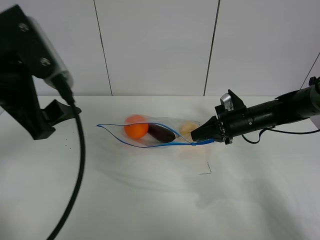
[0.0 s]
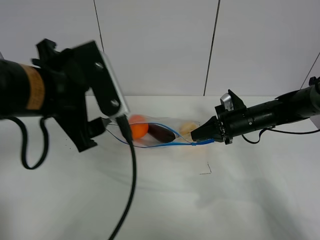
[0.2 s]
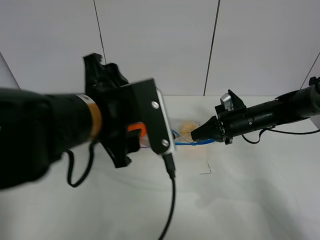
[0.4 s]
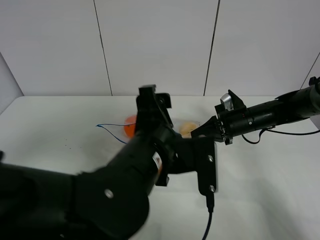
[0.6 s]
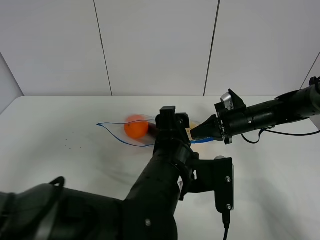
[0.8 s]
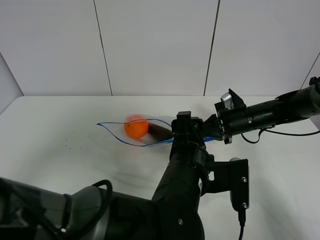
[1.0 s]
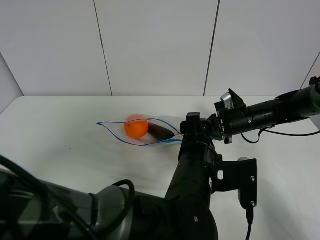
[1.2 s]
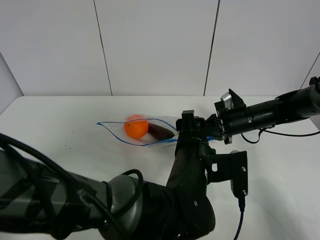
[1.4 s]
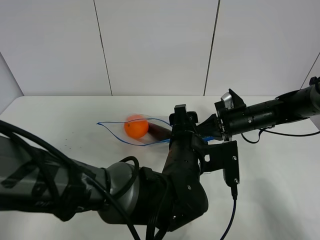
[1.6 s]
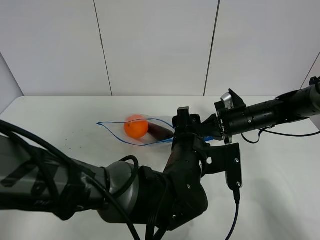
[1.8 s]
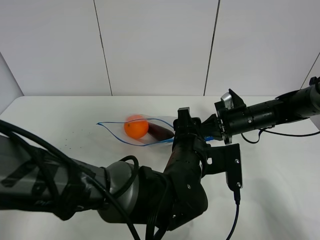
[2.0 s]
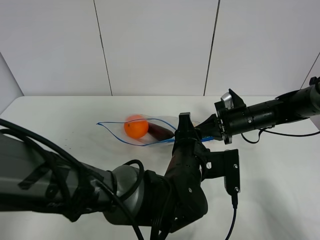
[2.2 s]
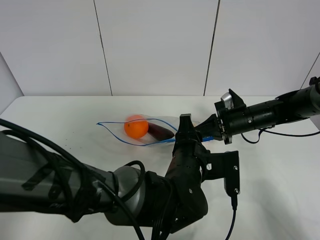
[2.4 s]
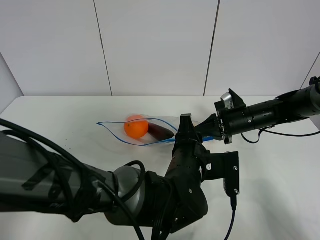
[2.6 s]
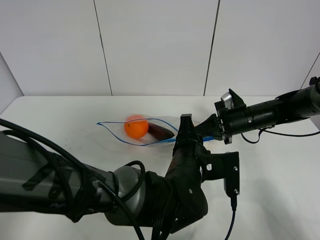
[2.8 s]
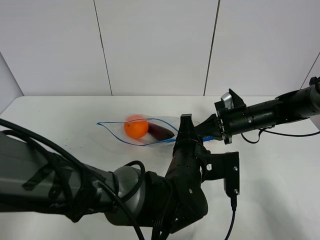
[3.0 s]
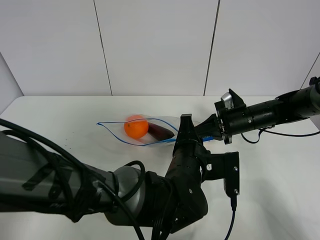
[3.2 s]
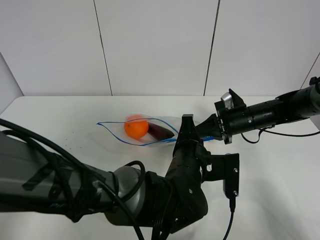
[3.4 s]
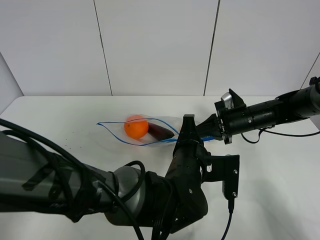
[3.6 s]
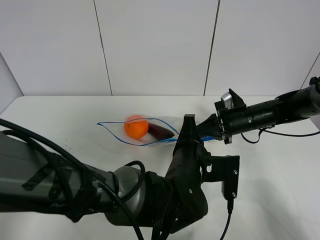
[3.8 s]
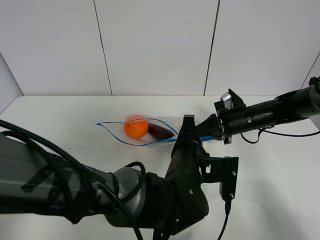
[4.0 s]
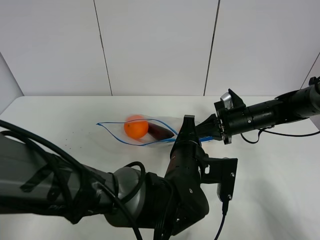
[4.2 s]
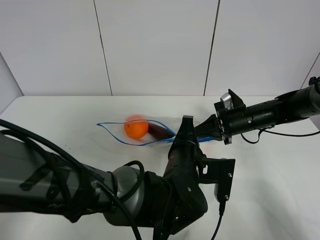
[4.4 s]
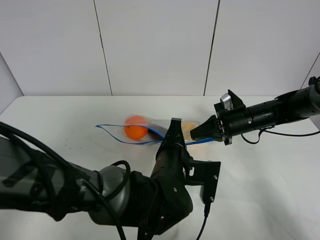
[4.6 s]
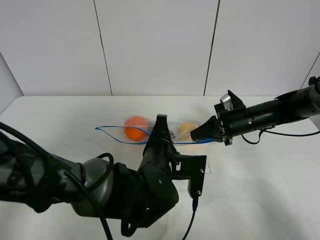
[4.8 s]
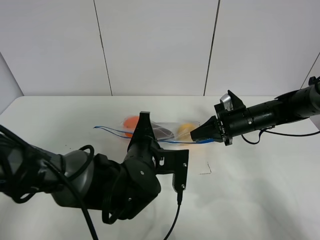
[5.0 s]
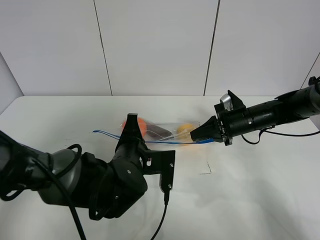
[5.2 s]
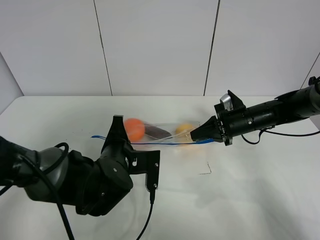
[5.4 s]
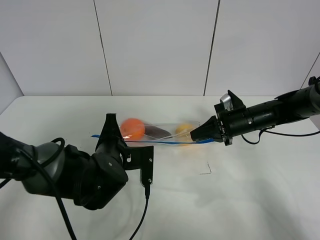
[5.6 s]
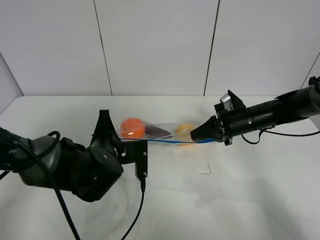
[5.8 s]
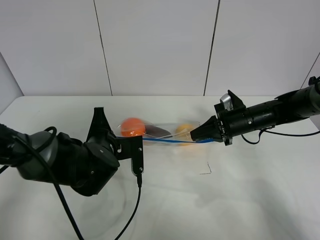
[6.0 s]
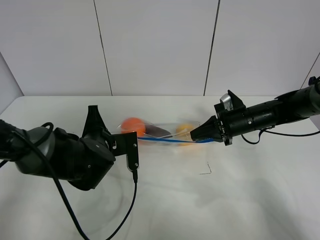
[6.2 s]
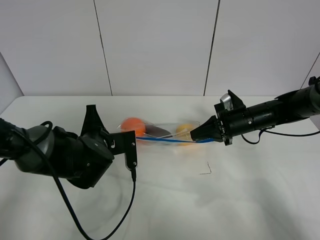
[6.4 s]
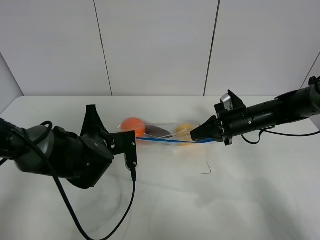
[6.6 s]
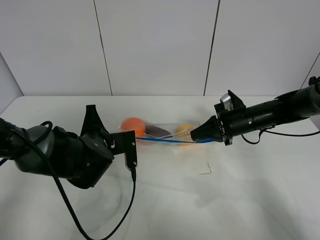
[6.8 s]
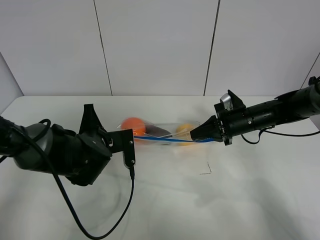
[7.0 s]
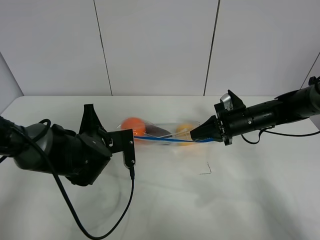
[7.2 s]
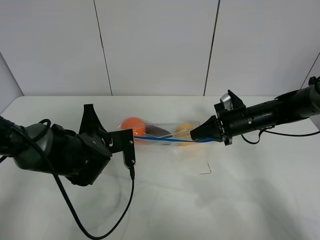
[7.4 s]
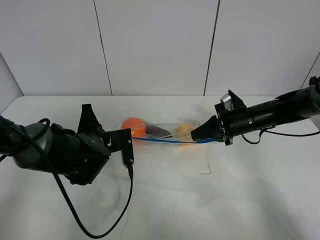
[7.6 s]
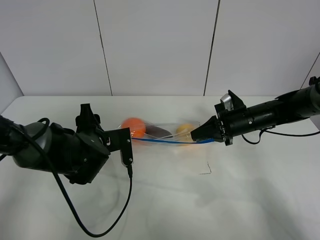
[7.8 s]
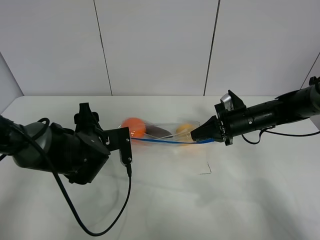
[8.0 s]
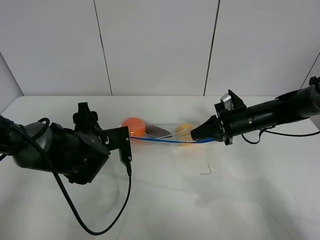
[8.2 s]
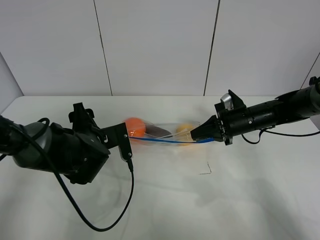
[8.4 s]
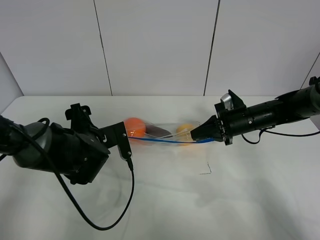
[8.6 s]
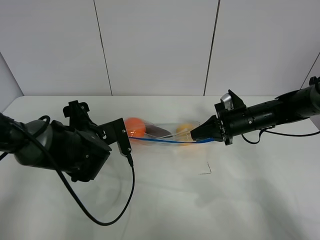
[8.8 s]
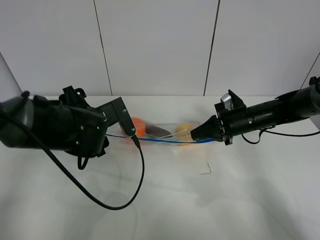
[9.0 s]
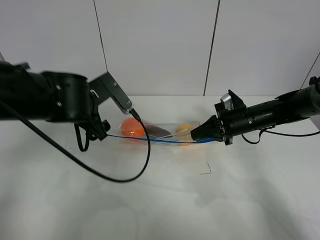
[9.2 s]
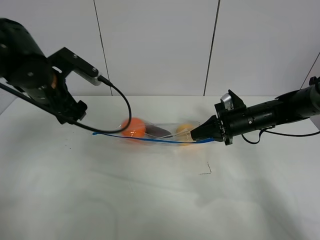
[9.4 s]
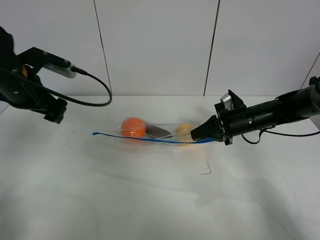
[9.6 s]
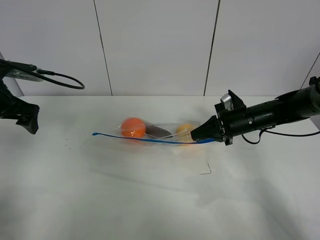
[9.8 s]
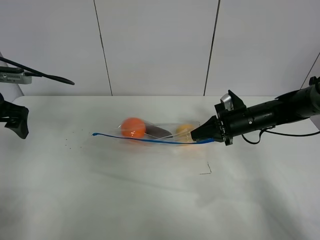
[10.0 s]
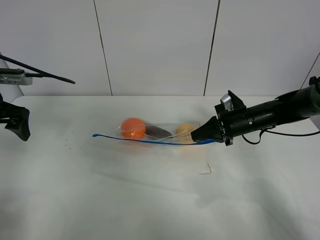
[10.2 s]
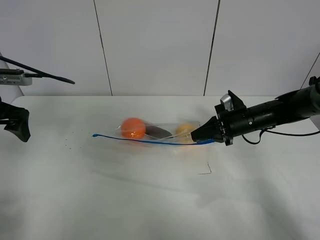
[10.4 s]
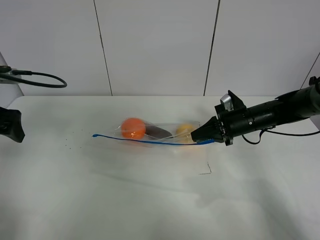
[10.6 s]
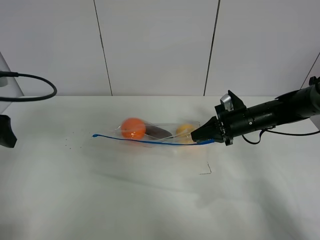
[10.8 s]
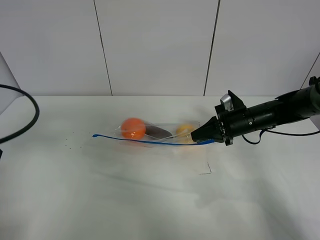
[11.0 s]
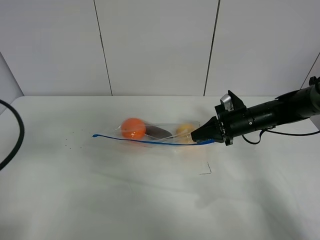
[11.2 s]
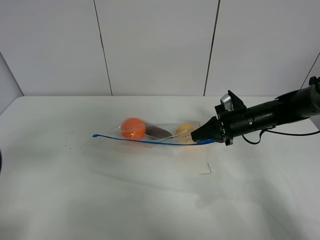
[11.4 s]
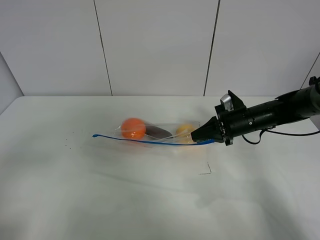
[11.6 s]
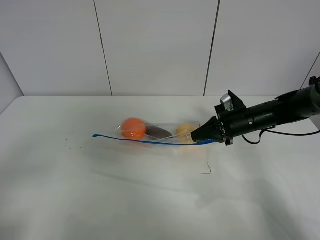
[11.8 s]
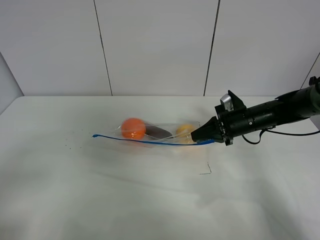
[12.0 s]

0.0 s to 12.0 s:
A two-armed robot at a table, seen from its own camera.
Step, 0.0 to 7.8 s: Pull the fruit bag with left gripper.
0.0 to 1.6 s: The left gripper travels to the right and downward by some 30 cm.
1.6 to 3.0 s: The left gripper closes up.
3.0 to 4.4 s: The grippers make only small movements.
4.4 to 6.0 s: The left gripper goes approximately 15 cm to the left.
6.0 to 7.6 s: The grippers make only small movements.
7.6 to 9.0 s: The left gripper moves upward, some 5 cm, and opens up.
9.0 to 10.4 s: The left gripper travels to the left by about 20 cm.
10.4 to 12.0 s: The left gripper goes some 25 cm backward.

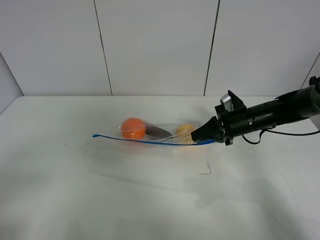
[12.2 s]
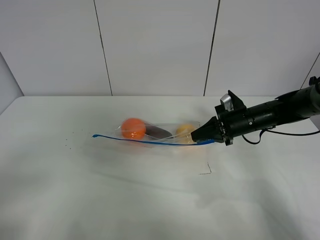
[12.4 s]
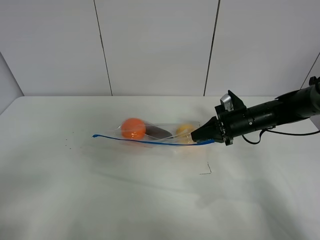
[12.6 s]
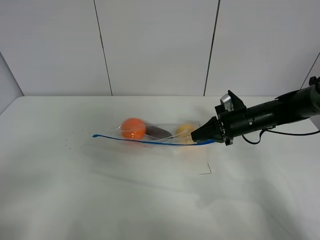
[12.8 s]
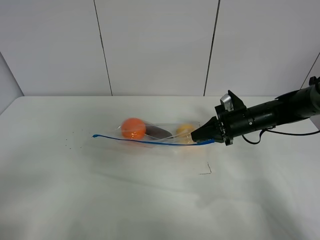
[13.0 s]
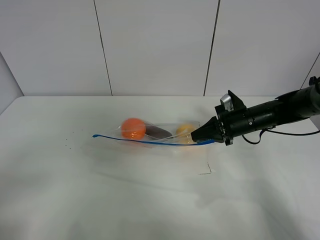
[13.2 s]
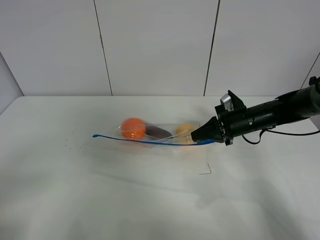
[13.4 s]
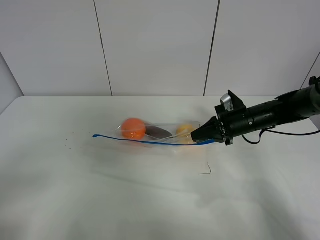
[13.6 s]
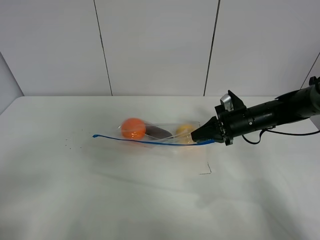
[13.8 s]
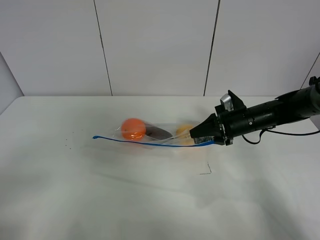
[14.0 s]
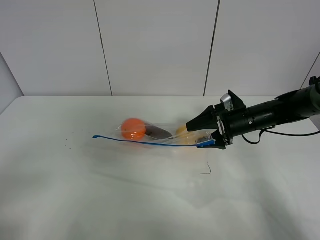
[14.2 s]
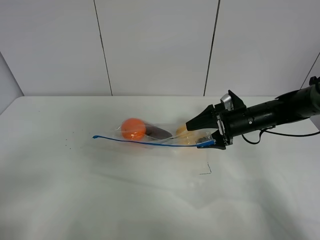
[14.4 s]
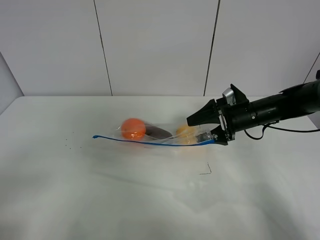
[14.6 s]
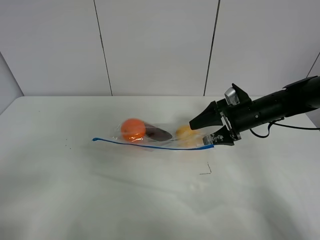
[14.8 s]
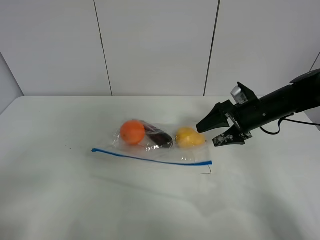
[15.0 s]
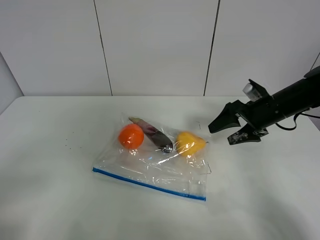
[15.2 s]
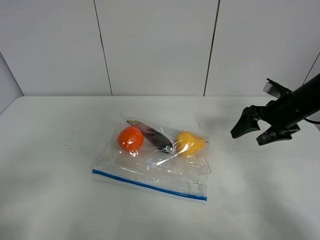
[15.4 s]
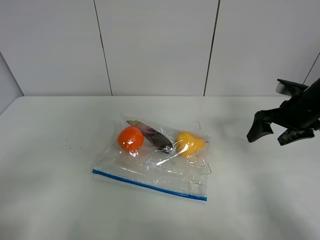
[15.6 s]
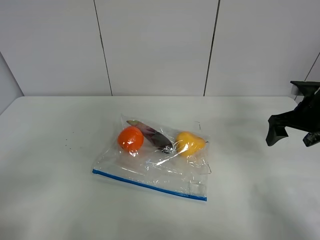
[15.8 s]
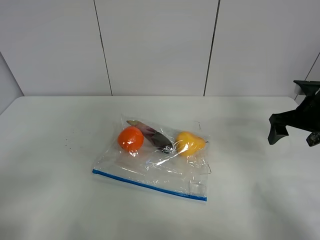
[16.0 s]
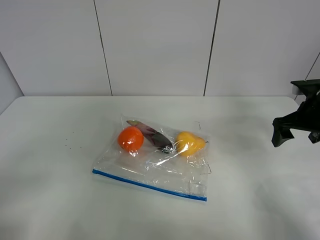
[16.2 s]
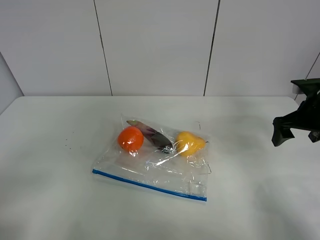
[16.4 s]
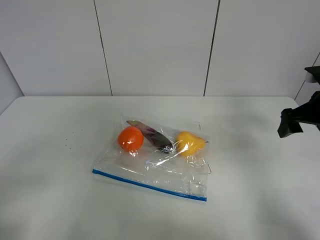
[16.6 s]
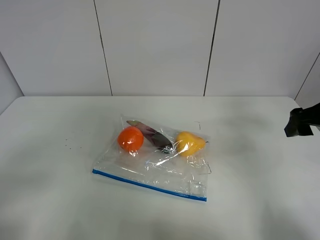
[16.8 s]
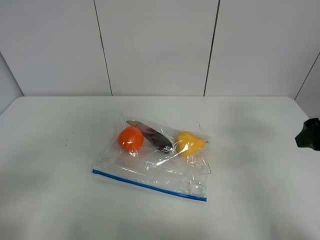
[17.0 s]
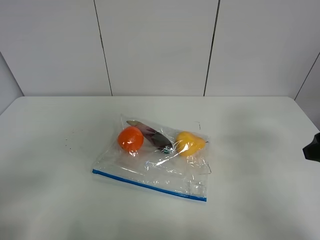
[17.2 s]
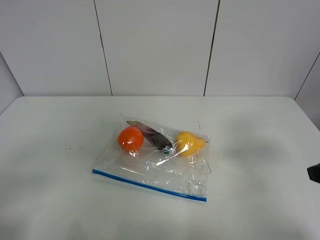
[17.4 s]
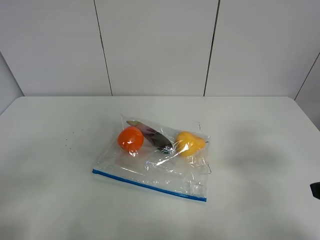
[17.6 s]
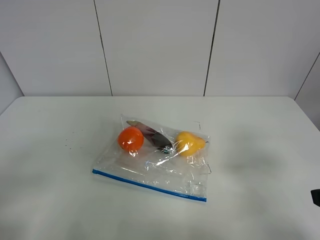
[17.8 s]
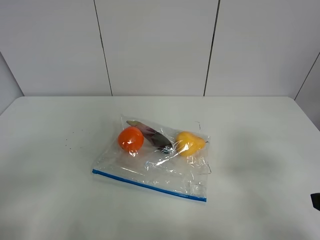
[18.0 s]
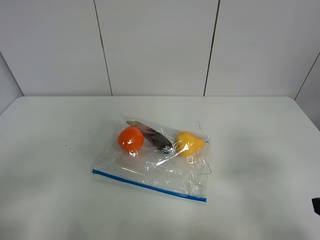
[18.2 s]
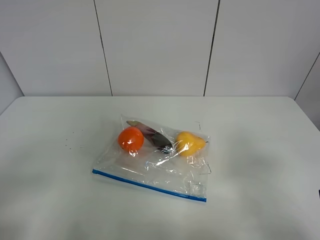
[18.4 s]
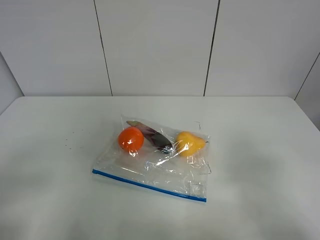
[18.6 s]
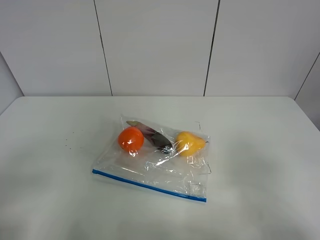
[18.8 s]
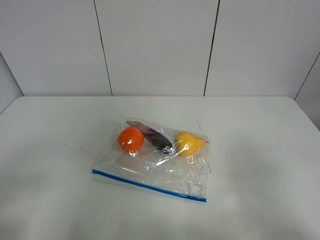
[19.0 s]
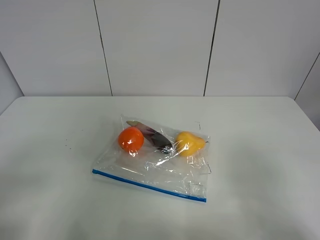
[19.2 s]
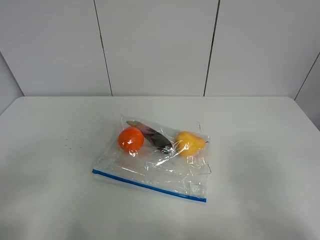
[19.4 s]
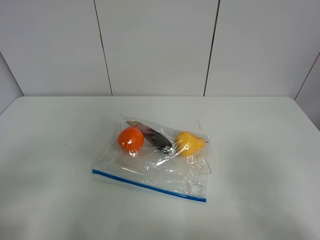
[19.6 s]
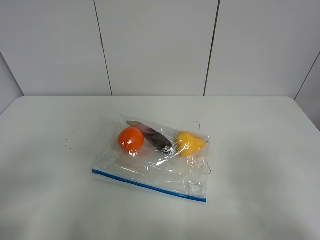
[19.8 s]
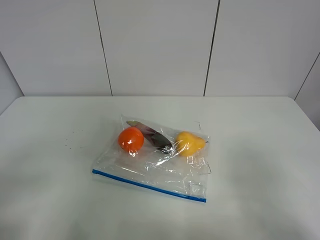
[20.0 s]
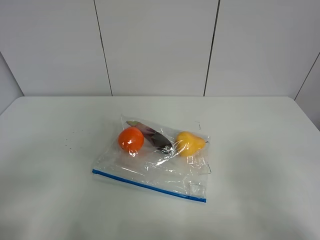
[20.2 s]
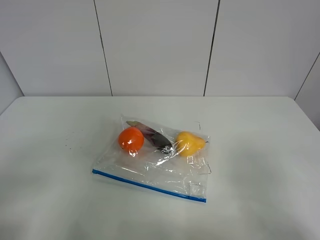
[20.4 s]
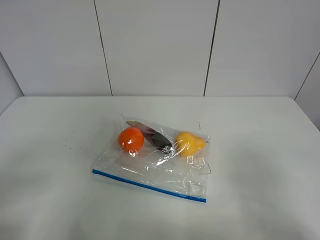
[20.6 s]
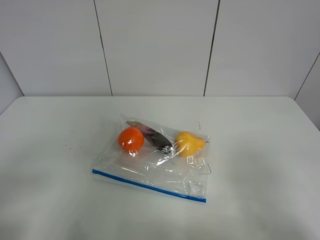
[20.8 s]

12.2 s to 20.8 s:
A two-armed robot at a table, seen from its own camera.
Step, 12.2 to 15.2 s: Place the fruit bag with right gripper.
12.2 to 13.6 s: Both grippers stay put.
13.6 to 15.0 s: The right gripper opens its fingers.
15.0 to 16.6 s: The right gripper shifts approximately 15 cm to the right, upward and backward.
16.6 to 18.0 s: The right gripper heads backward, covering roughly 20 cm.
19.4 to 20.8 s: Neither gripper changes place.

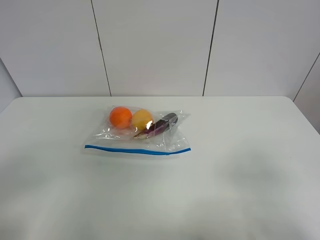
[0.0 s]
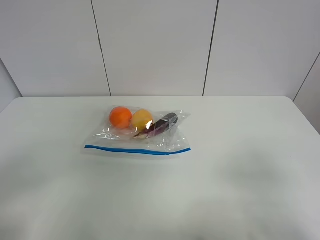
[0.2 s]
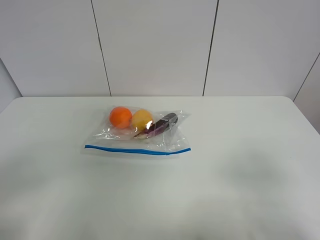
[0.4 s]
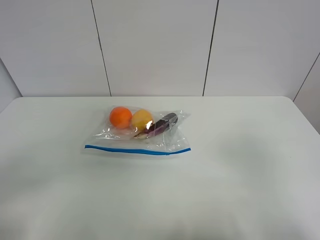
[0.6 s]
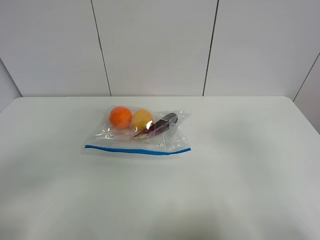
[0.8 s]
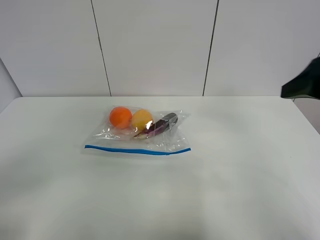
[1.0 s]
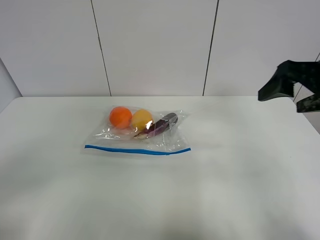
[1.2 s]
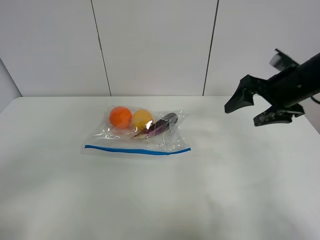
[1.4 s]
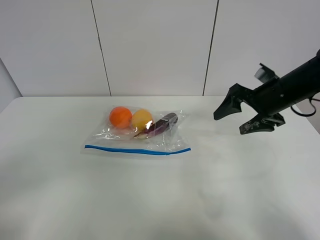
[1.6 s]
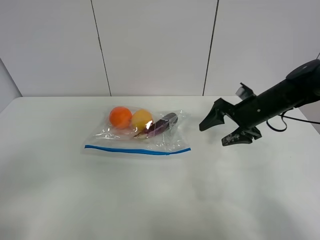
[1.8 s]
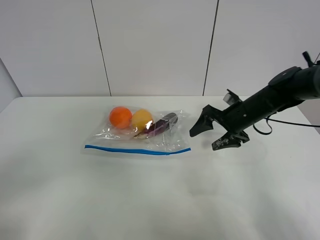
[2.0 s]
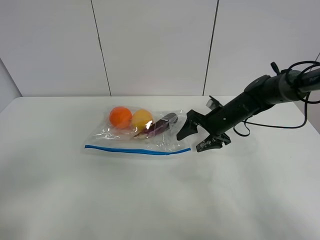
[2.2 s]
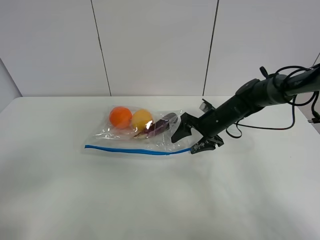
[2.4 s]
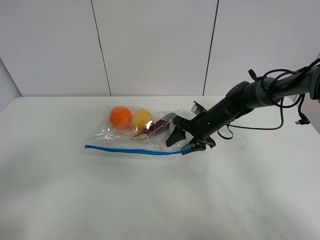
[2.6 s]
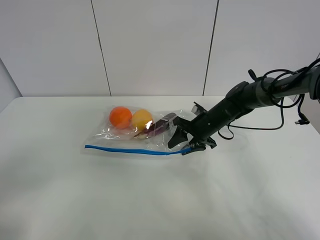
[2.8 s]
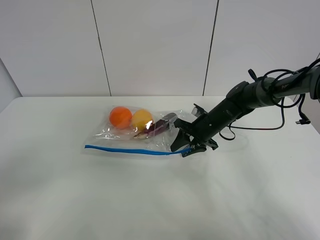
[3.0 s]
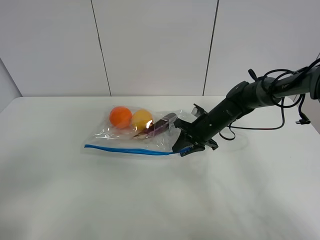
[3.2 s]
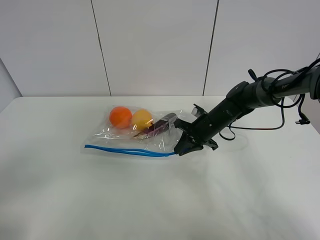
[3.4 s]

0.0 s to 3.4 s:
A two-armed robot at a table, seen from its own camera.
0.0 to 1.6 s: The right gripper shifts approximately 35 cm forward.
1.6 to 3.4 s: The right gripper travels downward, to the left and forward by approximately 15 cm, and closes up.
